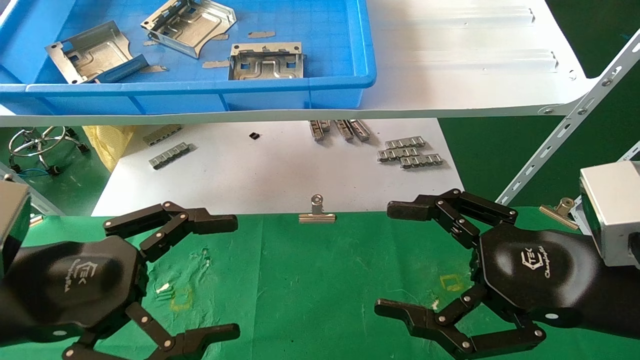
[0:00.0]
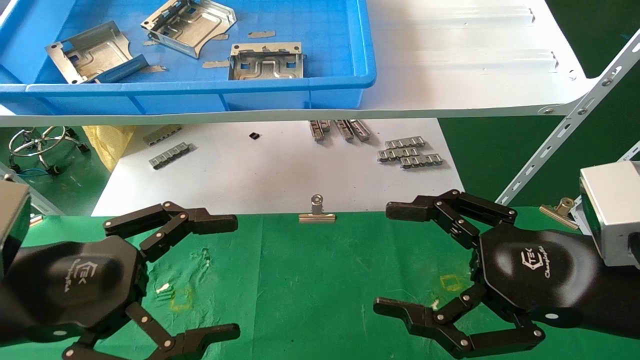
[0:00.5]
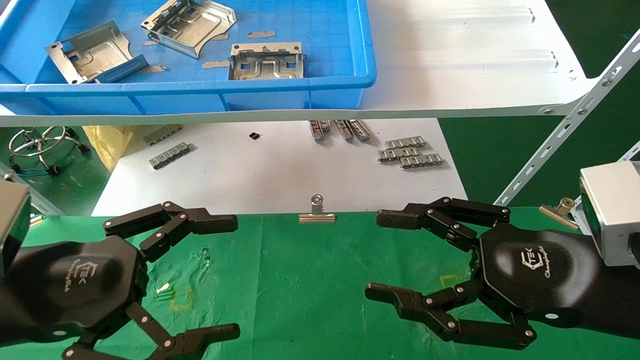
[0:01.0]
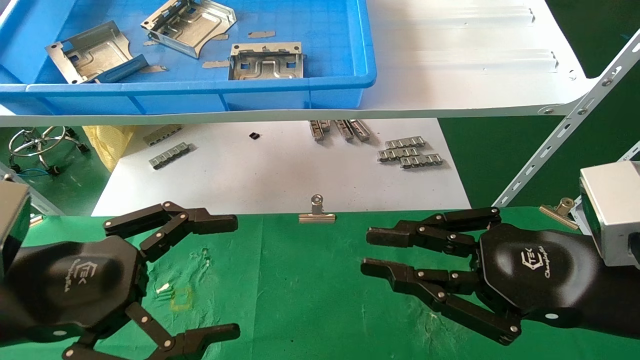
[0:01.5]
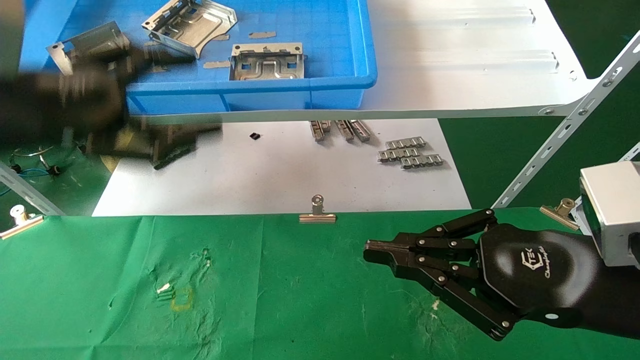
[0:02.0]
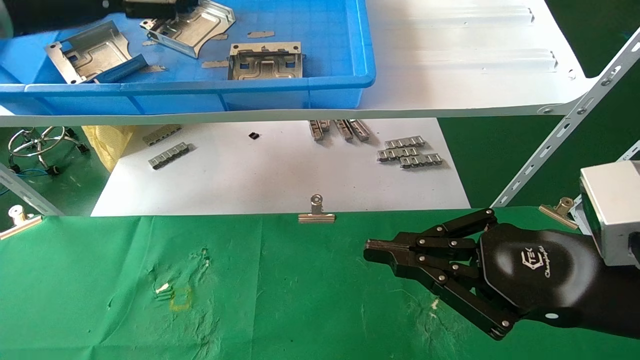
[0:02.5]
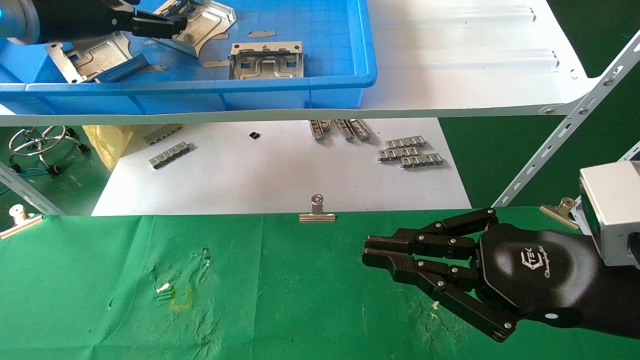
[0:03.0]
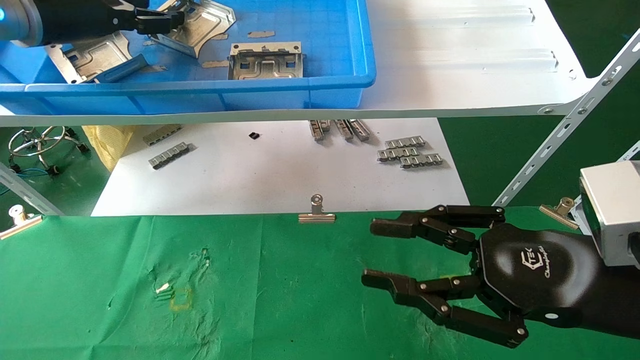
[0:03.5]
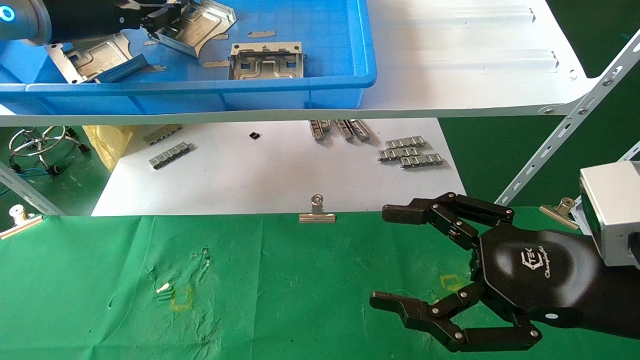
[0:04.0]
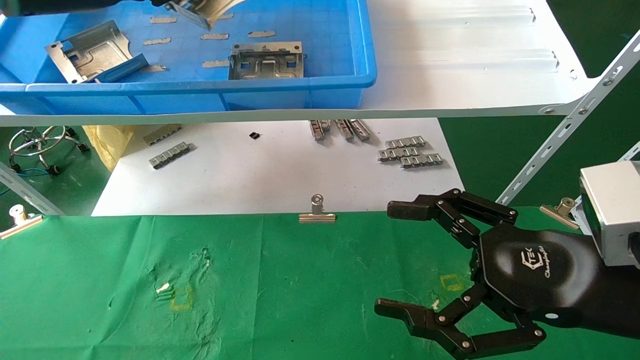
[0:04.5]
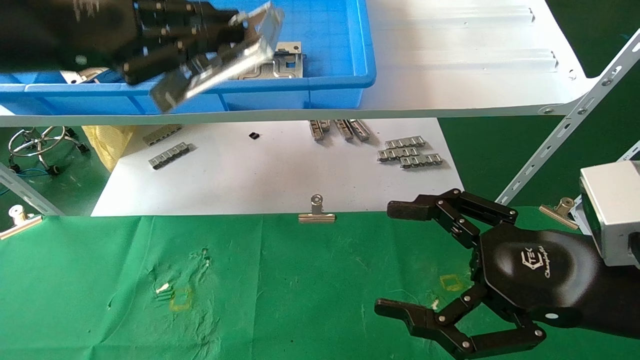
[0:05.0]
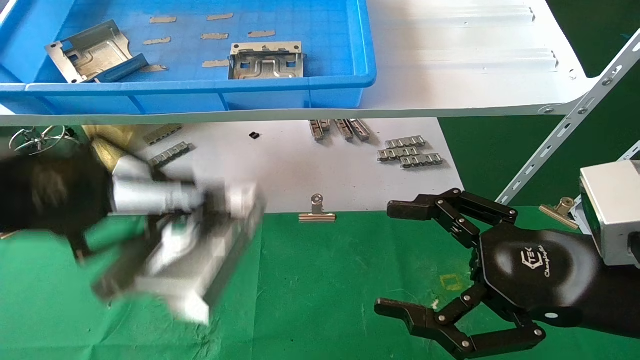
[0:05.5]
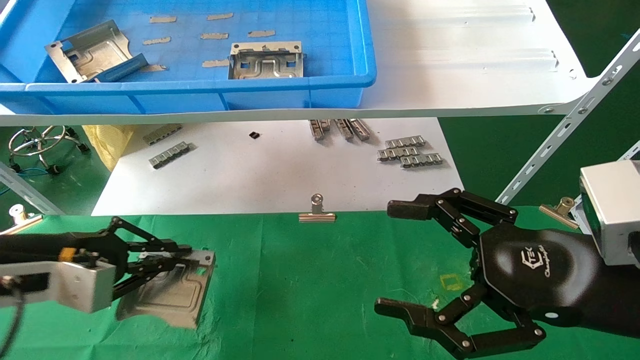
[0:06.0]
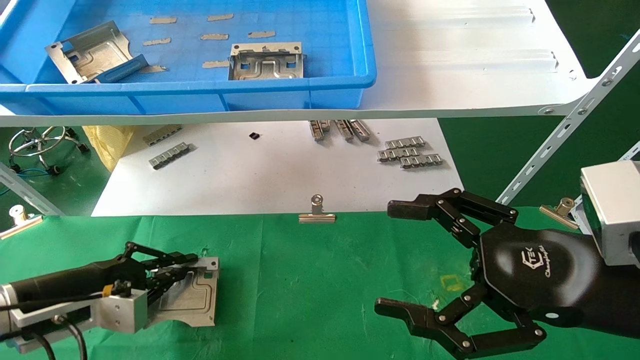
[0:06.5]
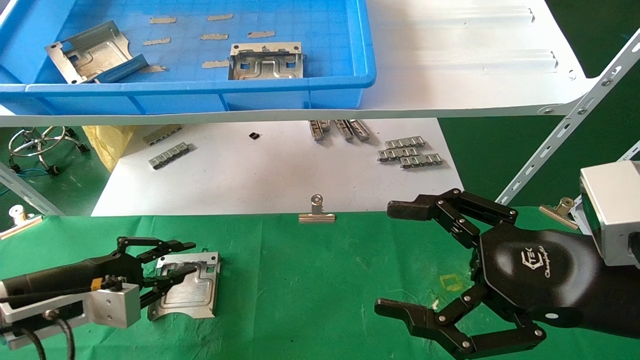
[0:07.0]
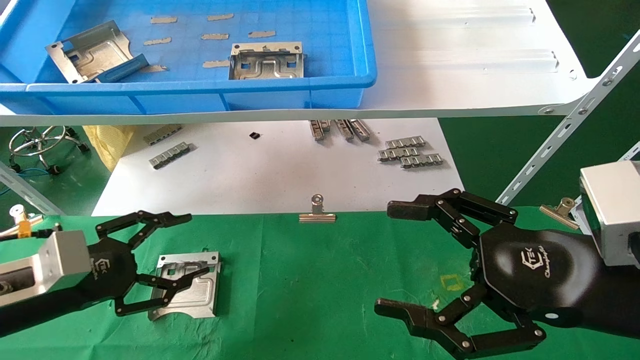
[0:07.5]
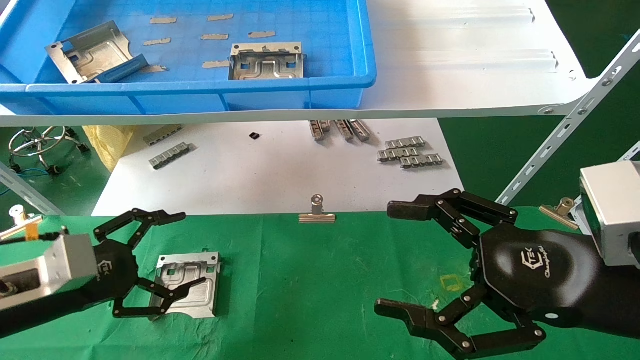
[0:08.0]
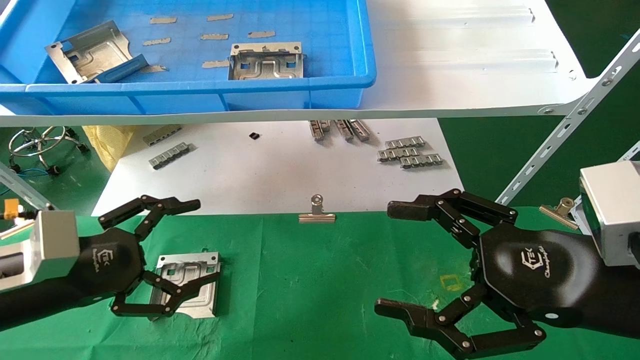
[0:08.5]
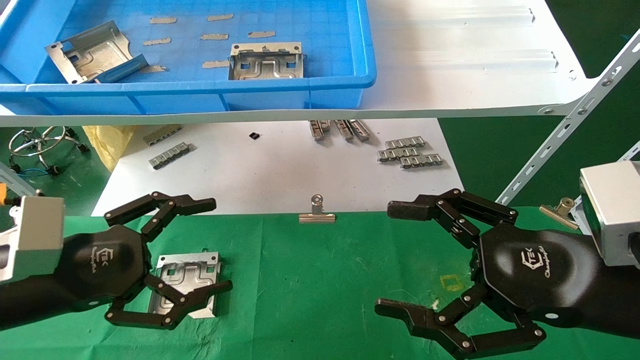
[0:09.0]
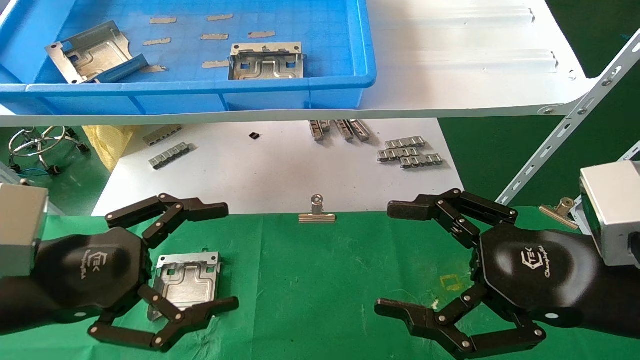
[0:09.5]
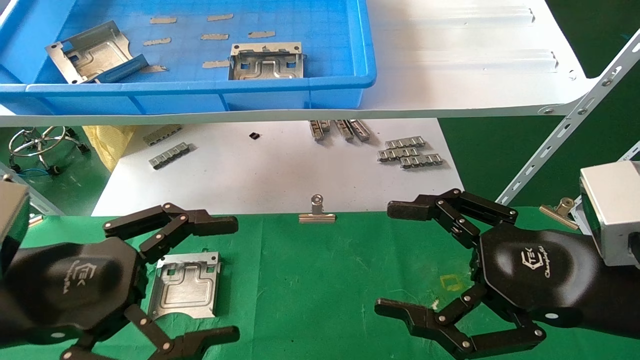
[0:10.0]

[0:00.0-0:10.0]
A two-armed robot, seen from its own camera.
Task of the whole recording: use the mechanical arm to pick up the parts and place them on the table.
Step, 0:02.0 to 0:04.0: Pick up the hard drive bracket from the feeding area.
Step, 0:04.5 to 0:06.5: Place the hard drive bracket into the box.
0:00.0 to 0:02.0: The right gripper closes its fingers. The left gripper travels upward and forward by roughly 15 cm.
0:02.0 to 0:04.0: The left gripper shifts approximately 15 cm forward and upward, and closes. Meanwhile the right gripper opens.
0:04.0 to 0:06.0: The left gripper moves downward and backward, approximately 30 cm.
0:06.0 to 0:08.0: The left gripper opens up.
0:08.0 to 0:10.0: The left gripper is displaced backward, upward and to the right by roughly 10 cm.
